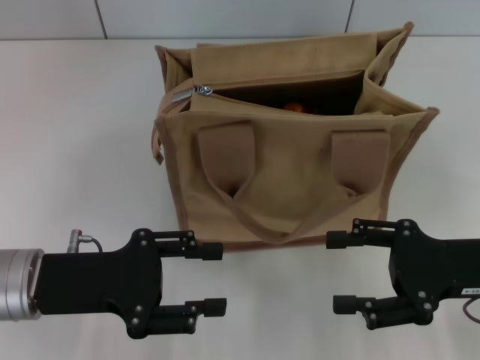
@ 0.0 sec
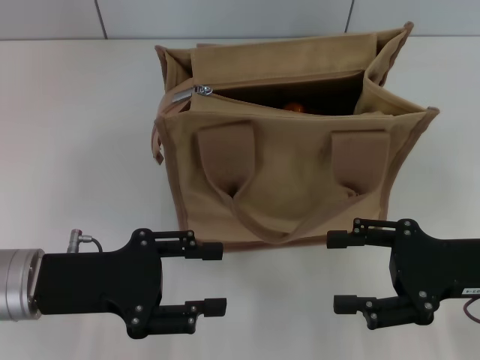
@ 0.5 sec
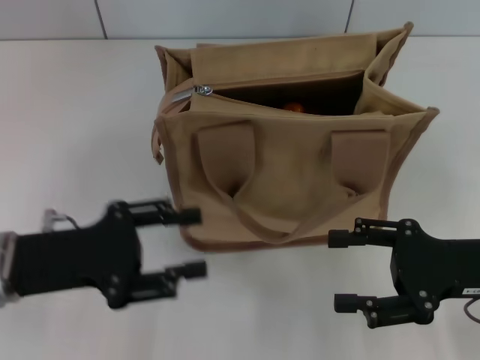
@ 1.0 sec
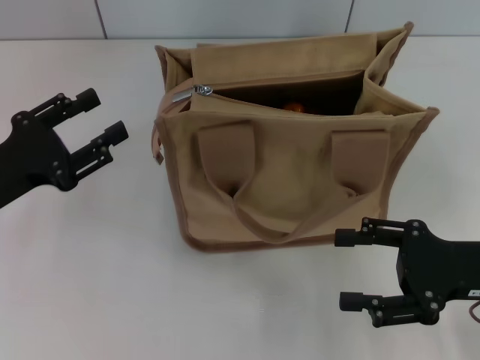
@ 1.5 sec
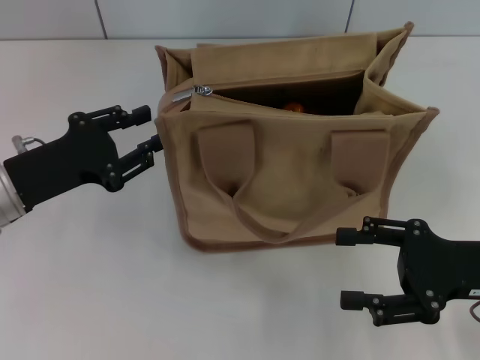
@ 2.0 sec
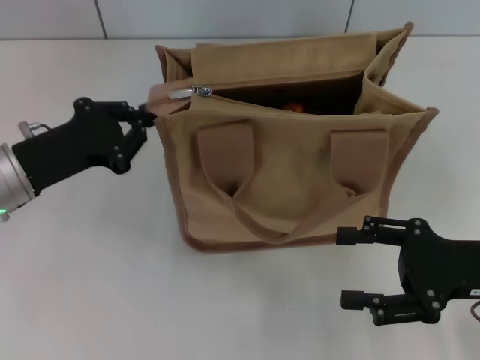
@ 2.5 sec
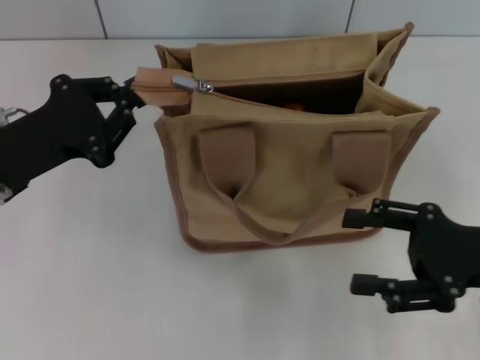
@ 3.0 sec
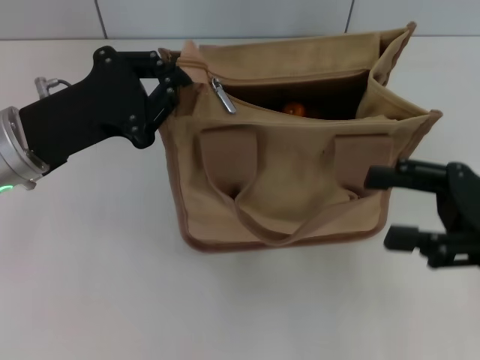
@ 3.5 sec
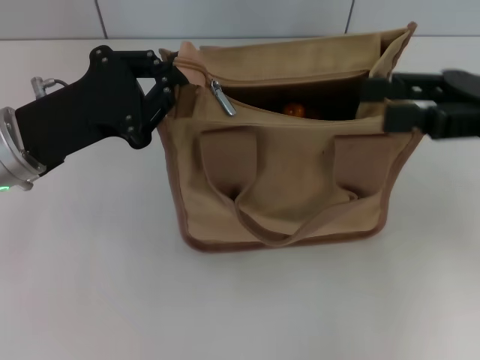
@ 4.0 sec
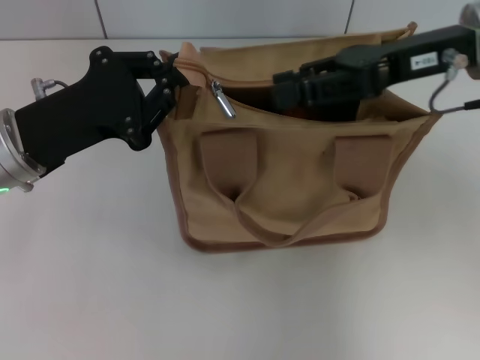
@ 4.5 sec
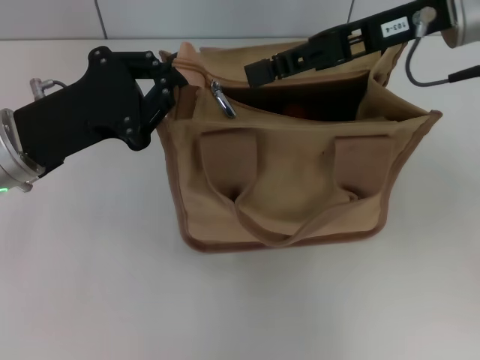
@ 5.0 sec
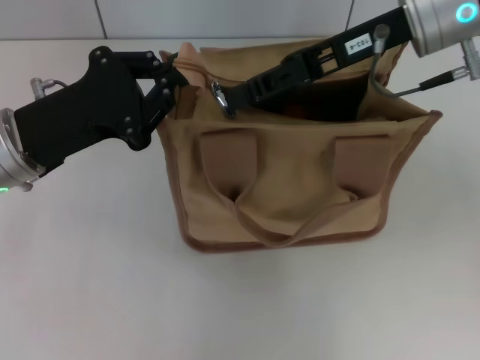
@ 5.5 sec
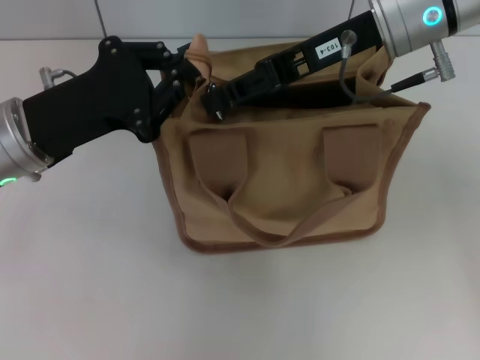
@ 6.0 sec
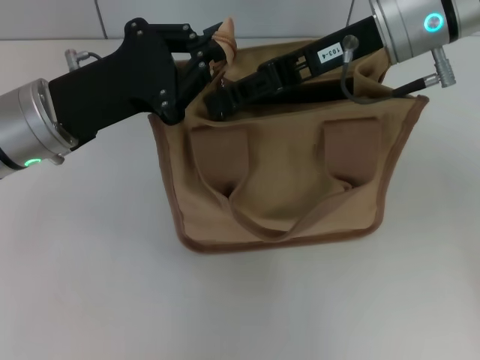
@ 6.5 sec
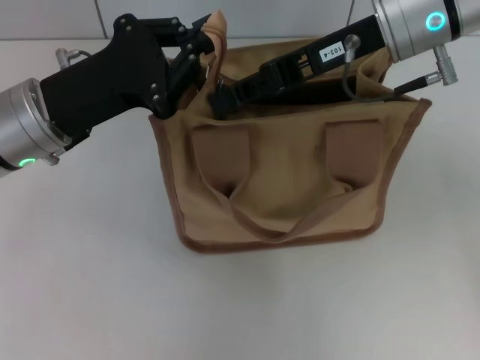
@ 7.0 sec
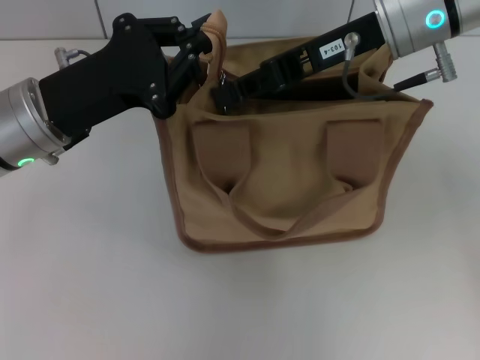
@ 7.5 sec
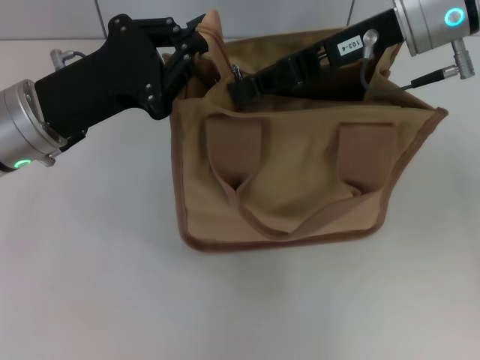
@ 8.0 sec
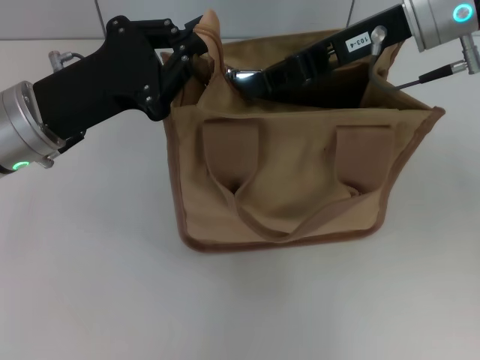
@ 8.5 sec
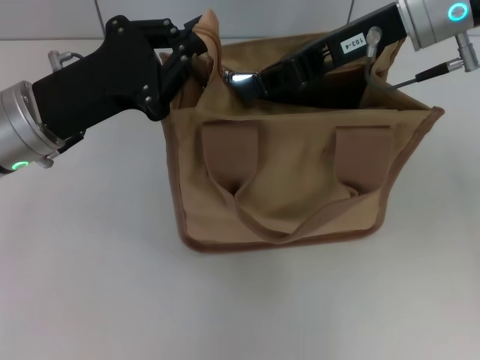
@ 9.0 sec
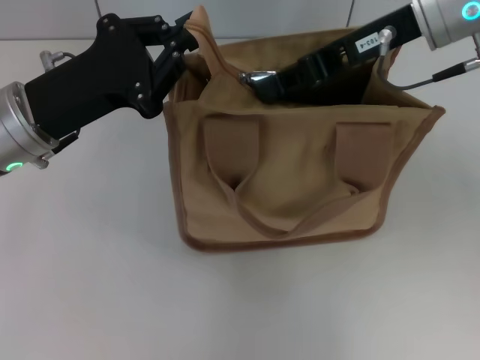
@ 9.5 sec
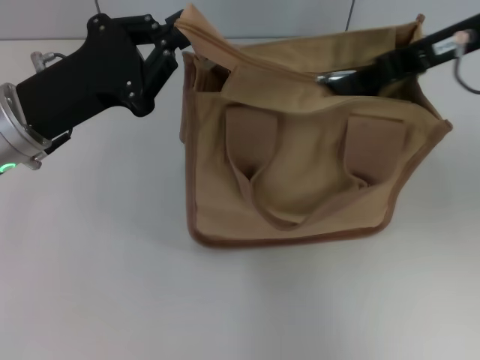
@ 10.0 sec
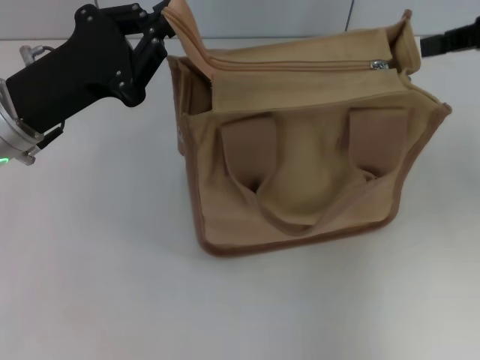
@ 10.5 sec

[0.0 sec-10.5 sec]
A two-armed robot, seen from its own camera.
0.0 sec to 2.0 sec: The left gripper heads forward, covering roughly 5 cm.
2.0 sec to 4.0 sec: The right gripper is displaced upward and forward by roughly 15 cm; the left gripper changes place by approximately 5 cm, and closes up.
4.0 sec to 6.5 sec: The right gripper heads to the left and forward, covering some 15 cm, and closes up.
6.5 sec to 8.5 sec: The grippers move only a little.
8.5 sec to 10.5 sec: The right gripper moves to the right, about 15 cm.

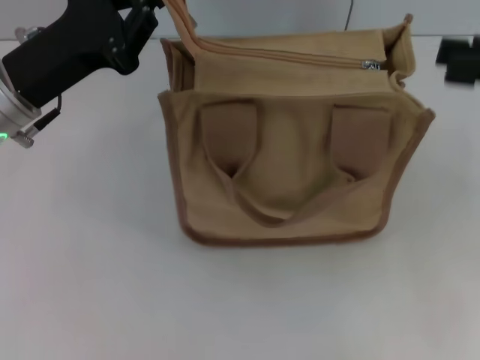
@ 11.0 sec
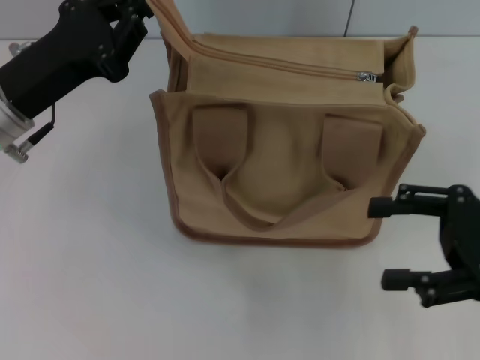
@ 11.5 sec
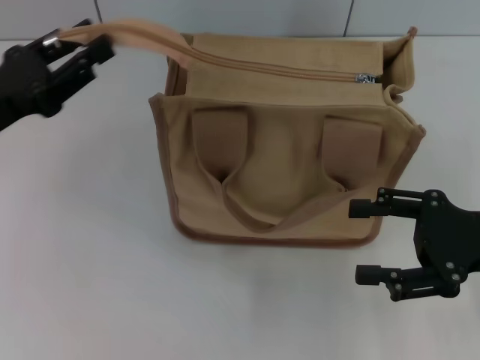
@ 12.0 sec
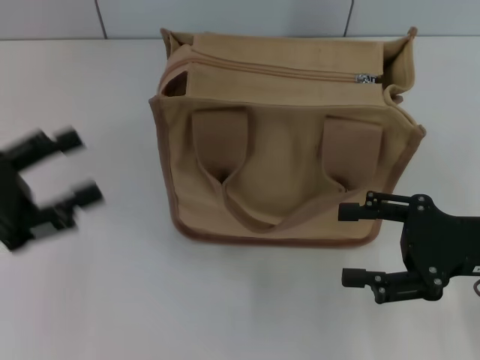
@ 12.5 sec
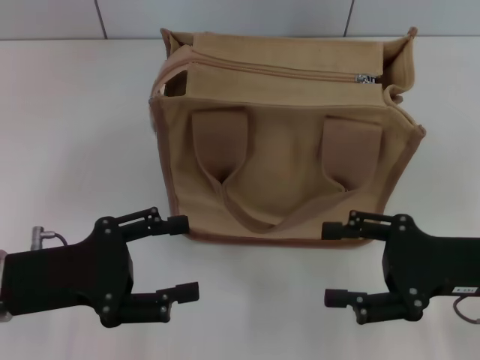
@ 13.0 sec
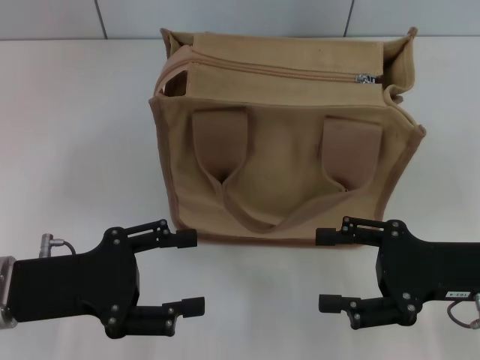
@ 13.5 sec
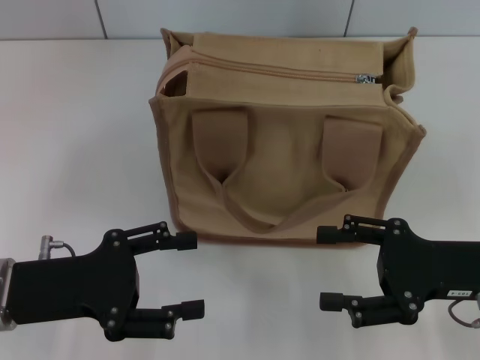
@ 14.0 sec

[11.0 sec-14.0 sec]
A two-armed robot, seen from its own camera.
Step, 11.0 sec to 12.0 sec: Grab the zipper with your left hand.
11.0 sec to 12.5 sec: The right gripper is displaced downward and to the left by about 15 cm, and opens its fingers. Meanwhile the left gripper goes approximately 15 cm backward and to the left, and opens up.
12.5 sec to 14.0 sec: The left gripper heads to the right, covering about 5 cm.

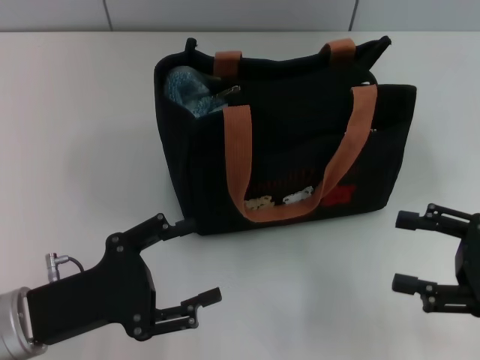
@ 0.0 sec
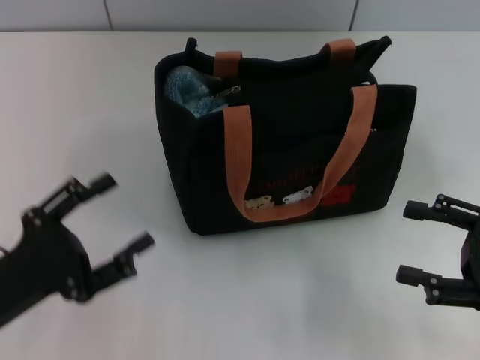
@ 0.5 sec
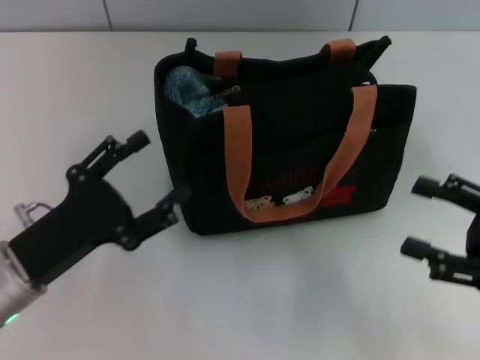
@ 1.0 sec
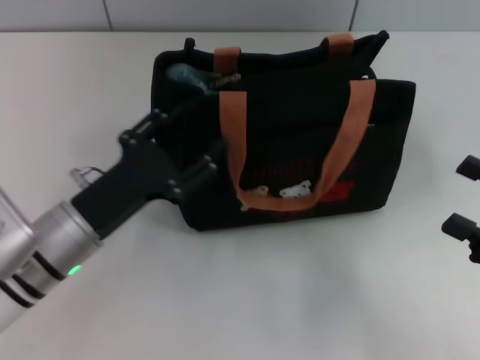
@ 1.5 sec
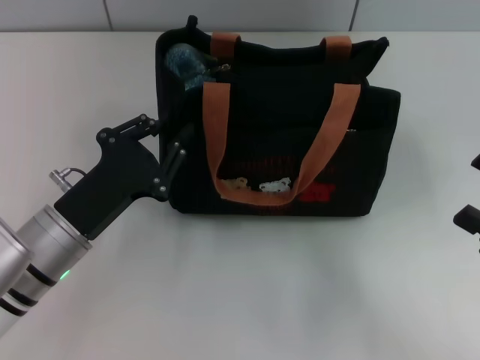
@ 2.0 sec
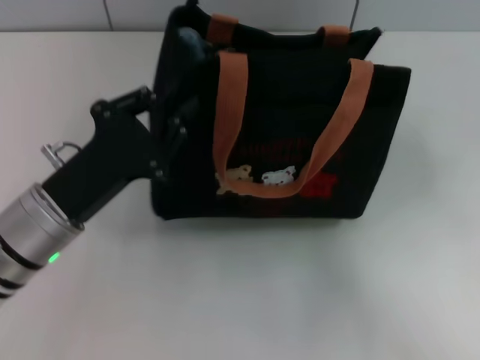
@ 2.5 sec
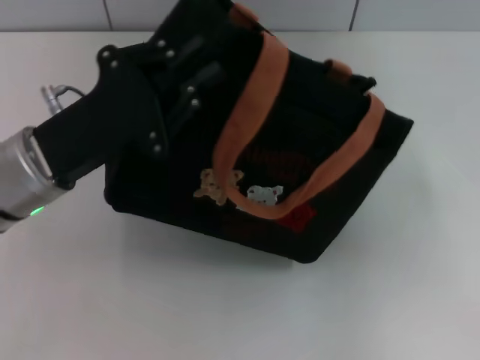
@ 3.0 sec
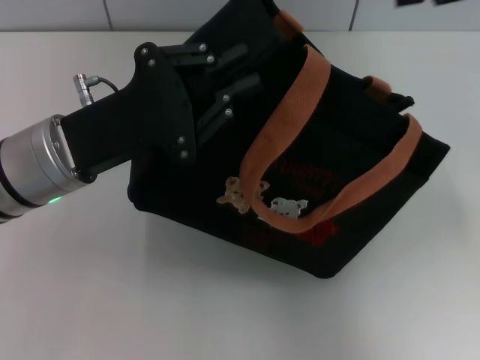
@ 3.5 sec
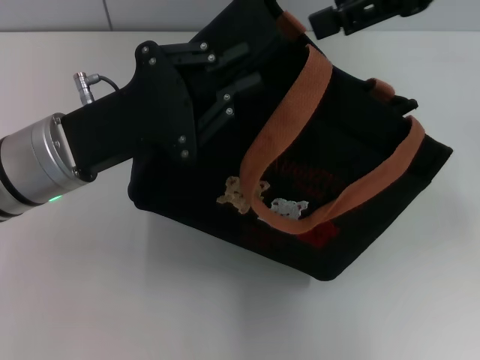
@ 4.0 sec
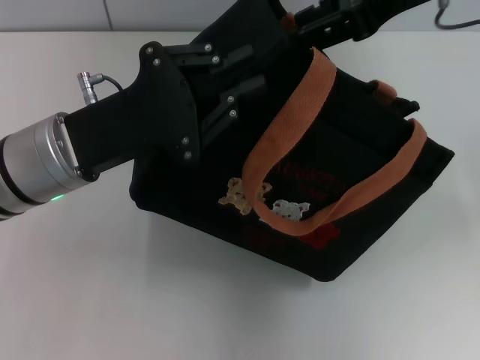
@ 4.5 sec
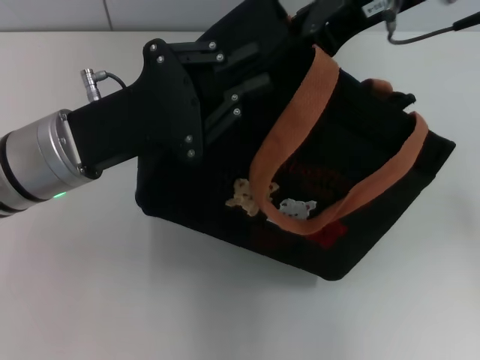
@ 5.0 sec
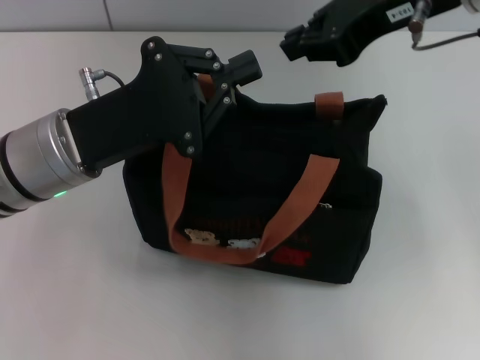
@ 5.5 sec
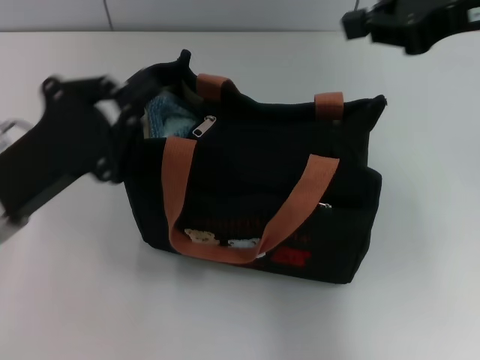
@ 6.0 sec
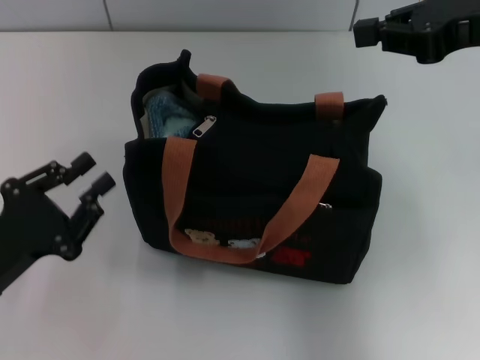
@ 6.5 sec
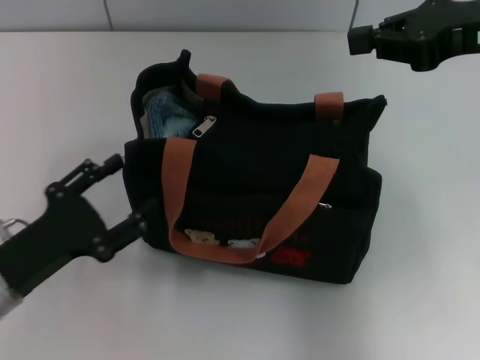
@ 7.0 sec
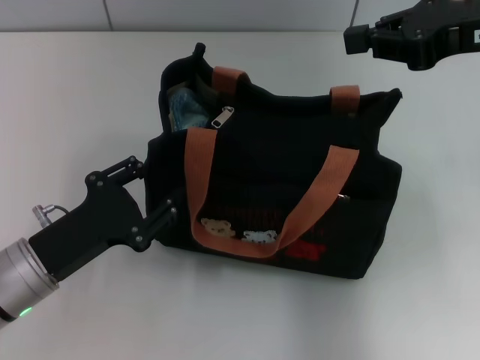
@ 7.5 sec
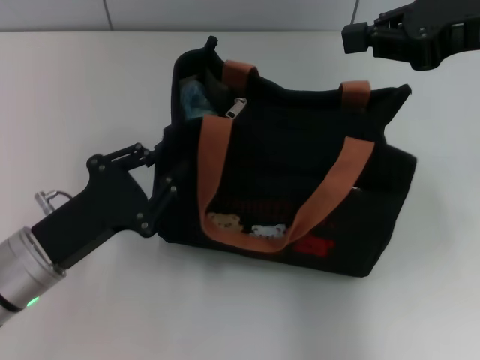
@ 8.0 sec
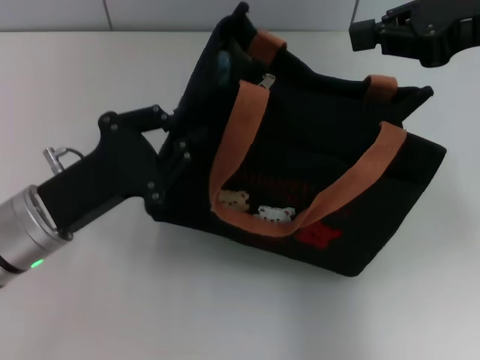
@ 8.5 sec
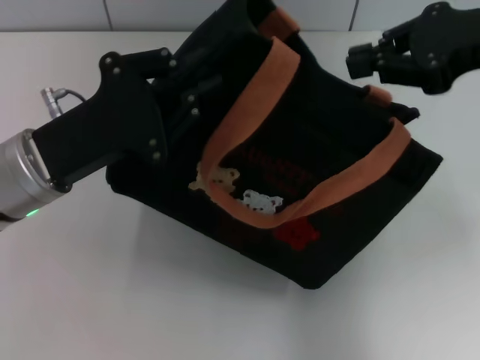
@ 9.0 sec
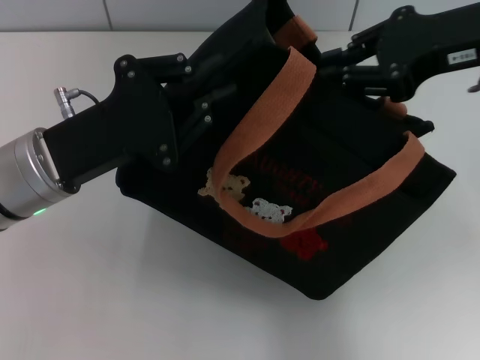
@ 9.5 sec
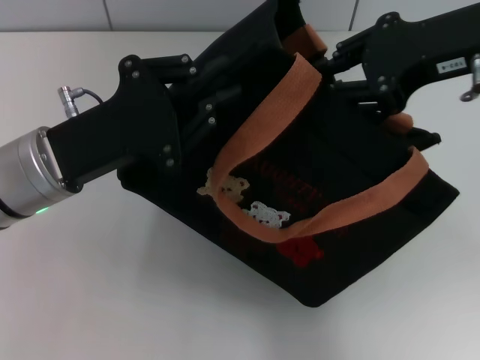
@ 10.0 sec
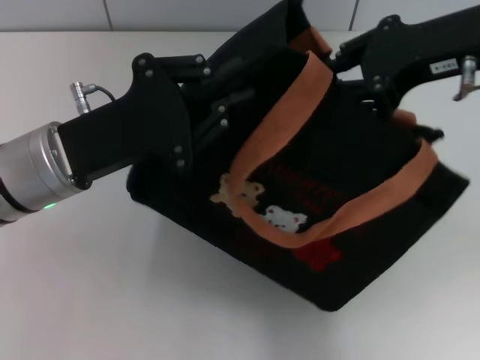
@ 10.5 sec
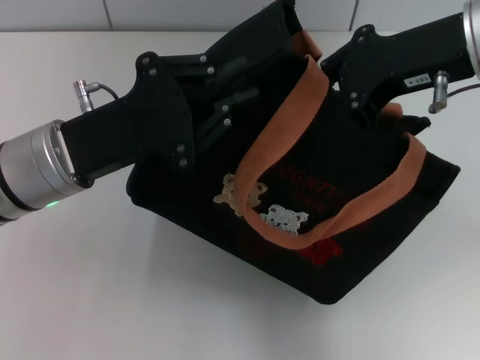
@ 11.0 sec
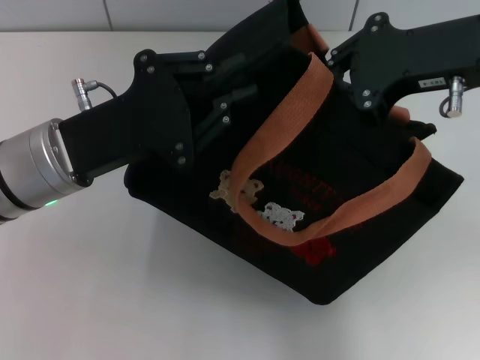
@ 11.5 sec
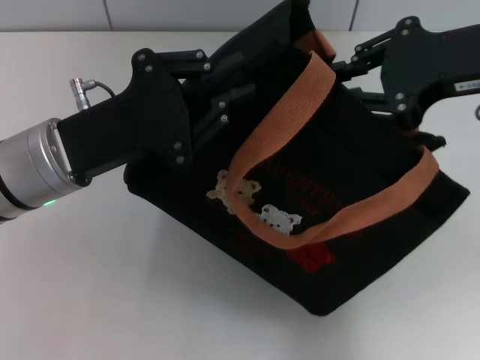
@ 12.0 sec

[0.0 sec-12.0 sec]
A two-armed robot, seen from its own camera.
0.0 sec to 2.0 sec: The left gripper travels forward by about 5 cm, and closes its fingers.
2.0 sec to 4.0 sec: The right gripper moves upward, forward and to the left, roughly 30 cm. Meanwhile the left gripper shifts approximately 10 cm upward and forward.
4.0 sec to 6.0 sec: The left gripper shifts by about 5 cm; the right gripper moves roughly 5 cm to the left and comes back, and closes its fingers.
6.0 sec to 8.0 sec: The left gripper shifts approximately 5 cm downward, and opens.
8.0 sec to 10.0 sec: The left gripper shifts roughly 10 cm upward and forward; the right gripper opens its fingers.
10.0 sec to 12.0 sec: The grippers make only small movements.
